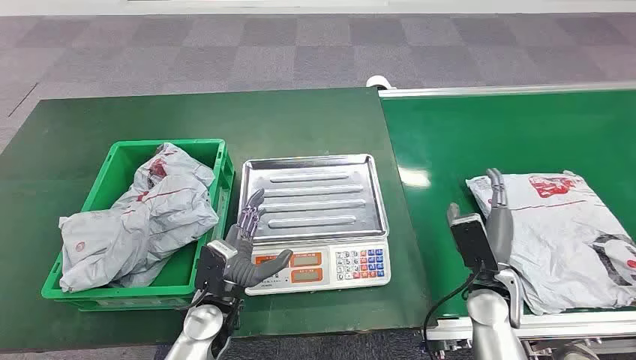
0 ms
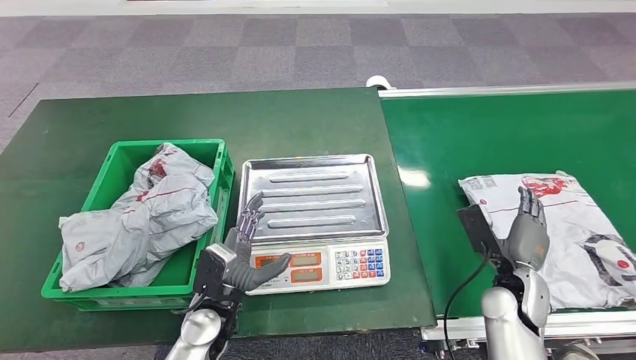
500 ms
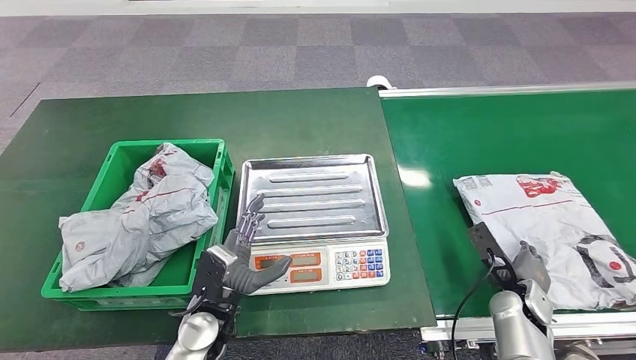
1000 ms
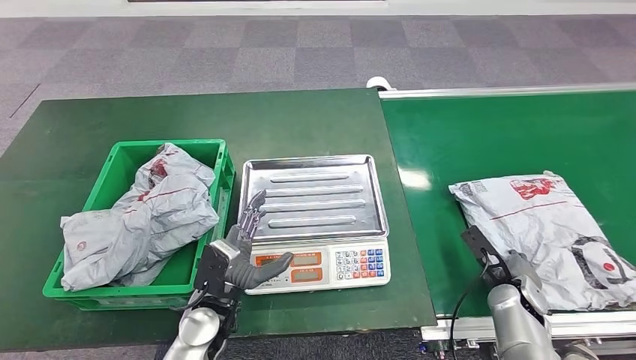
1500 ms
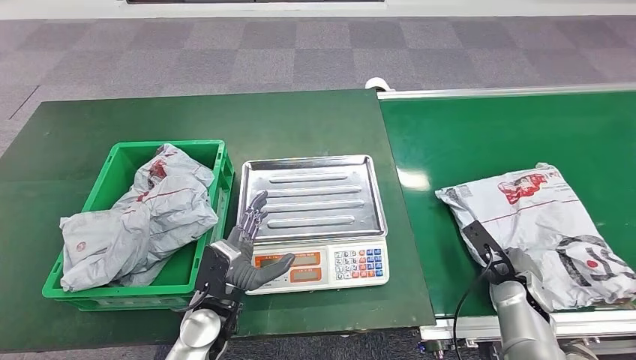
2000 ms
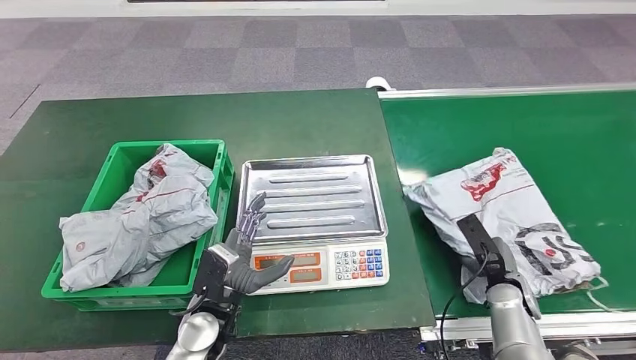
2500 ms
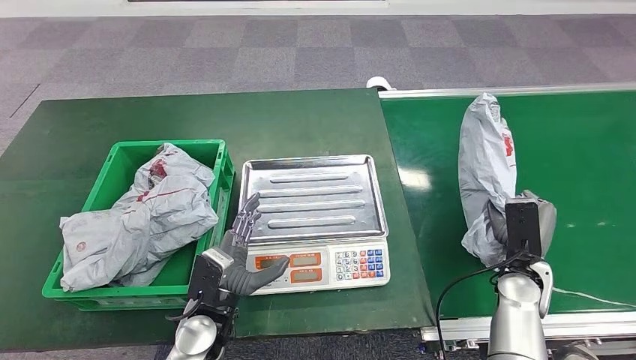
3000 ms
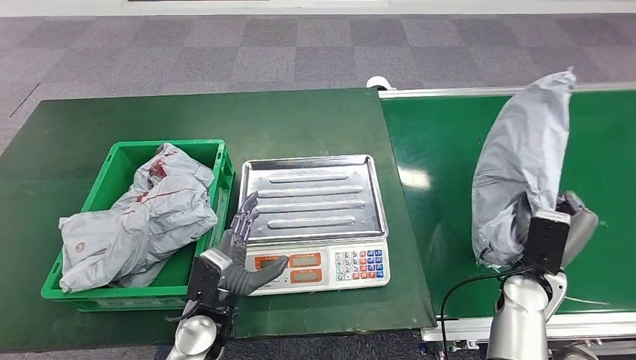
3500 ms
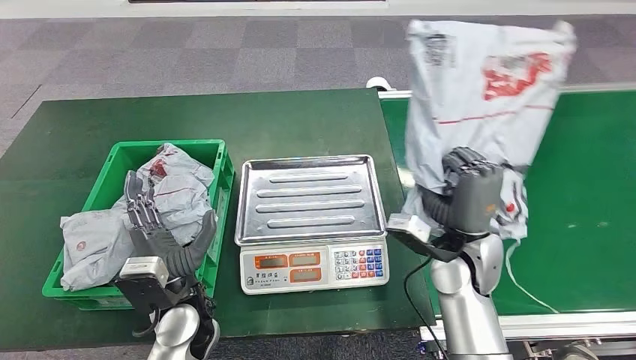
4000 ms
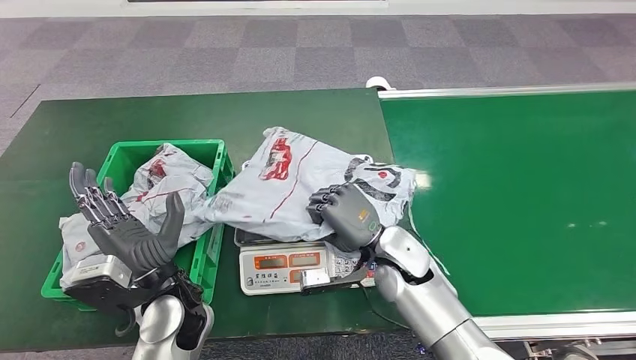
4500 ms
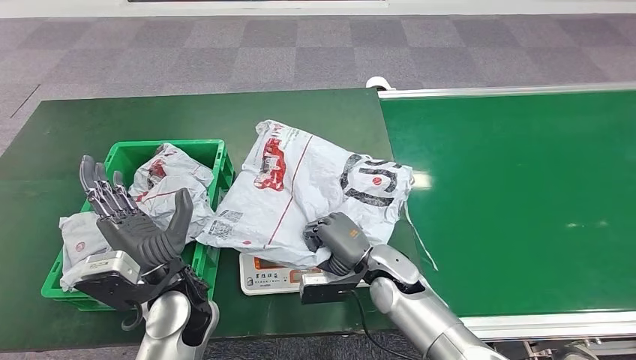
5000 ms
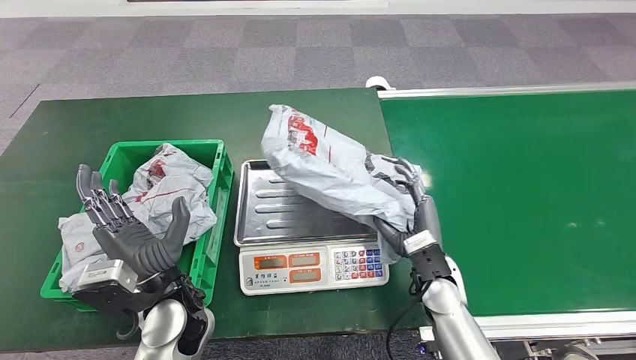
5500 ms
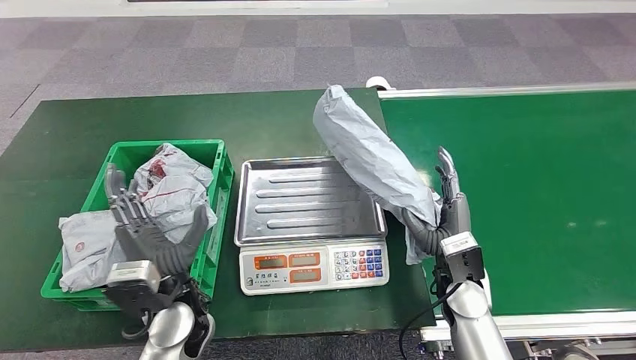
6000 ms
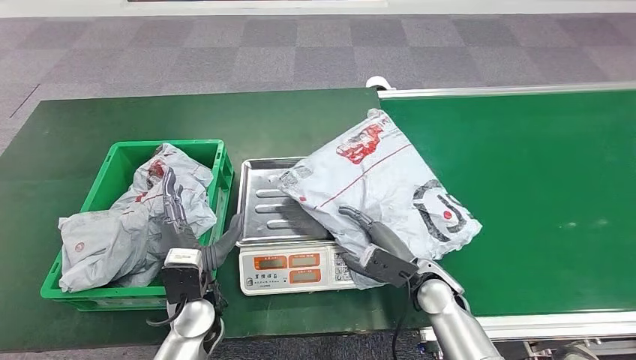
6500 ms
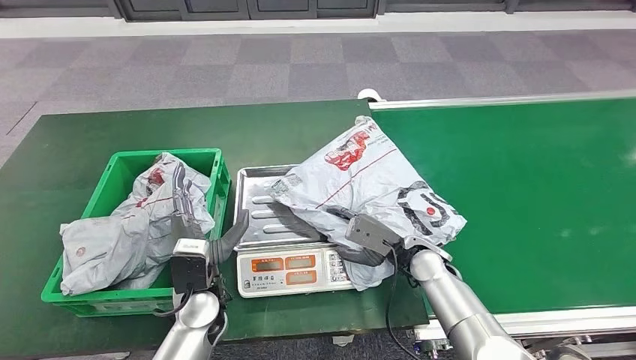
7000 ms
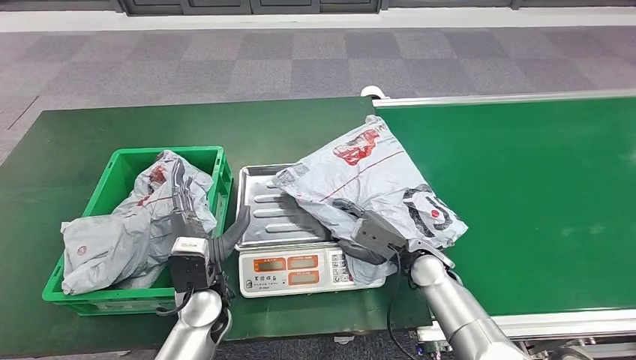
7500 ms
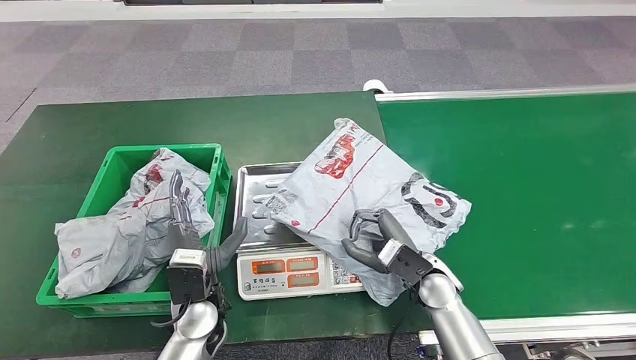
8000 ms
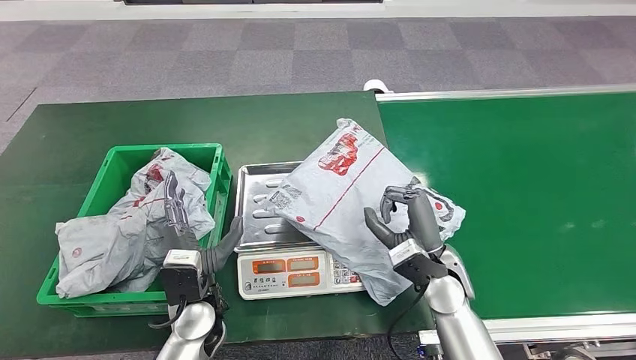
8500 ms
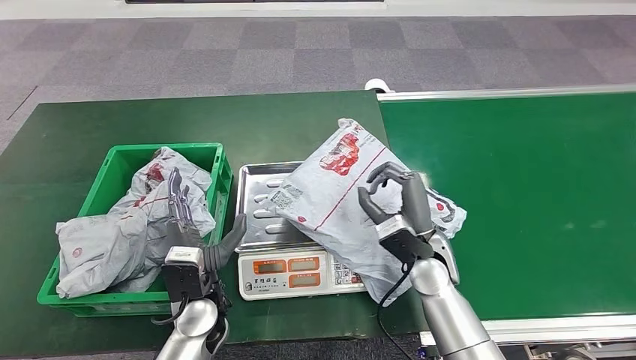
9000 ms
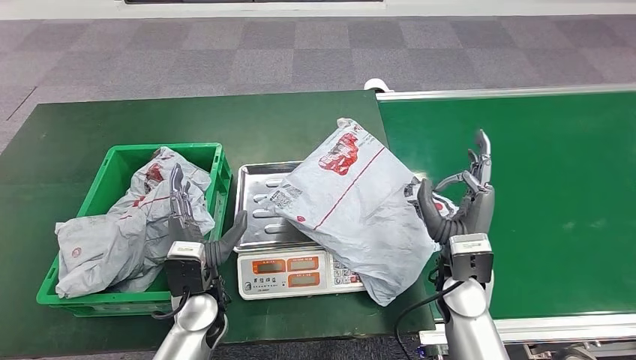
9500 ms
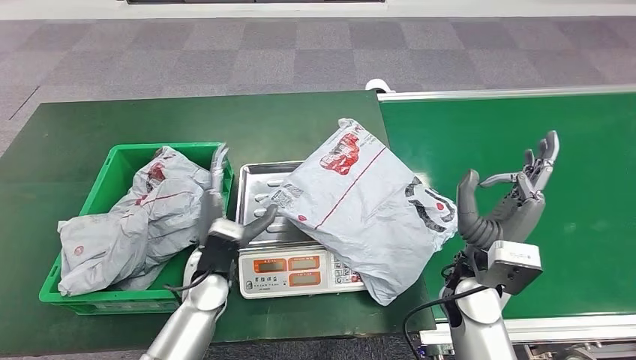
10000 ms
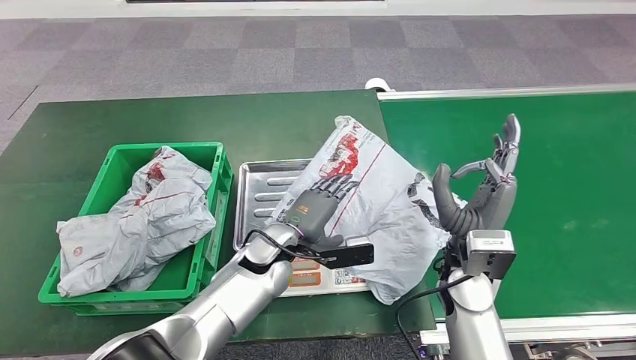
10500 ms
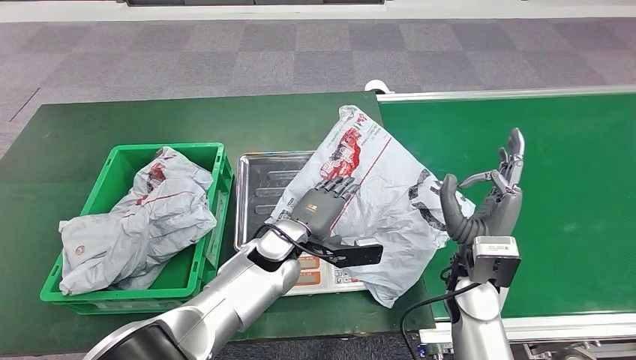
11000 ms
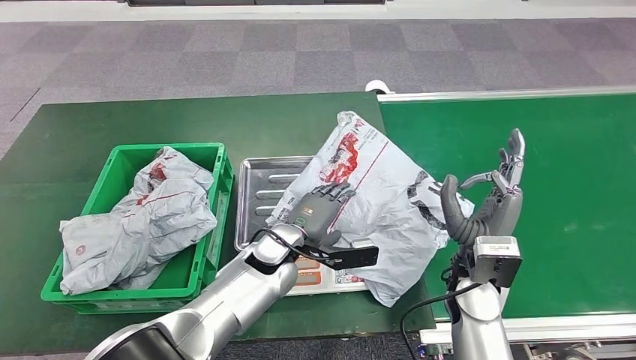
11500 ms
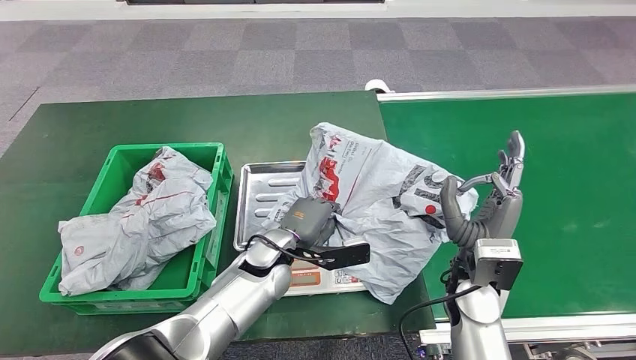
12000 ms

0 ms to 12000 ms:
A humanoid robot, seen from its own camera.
Step, 0 ms to 3500 ms: Pick up the package from the conveyor belt.
Step, 4000 ms to 6000 ms: Place the package onto the inbound machine.
8000 ms to 10000 ms: The right hand travels upward by some 10 cm. Meanwhile the left hand moves approximately 5 cm.
10000 ms to 12000 ms: The left hand travels to the right by about 10 cm.

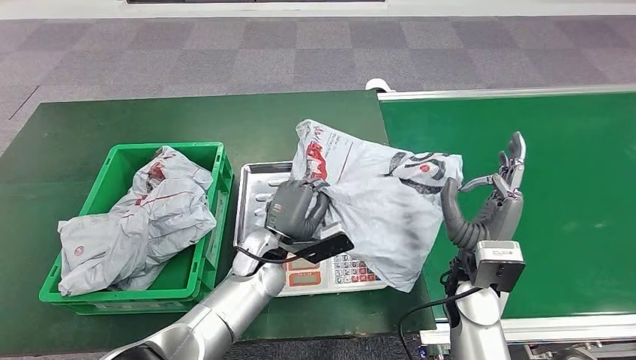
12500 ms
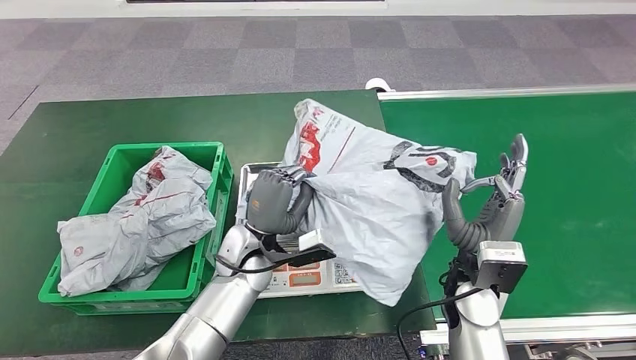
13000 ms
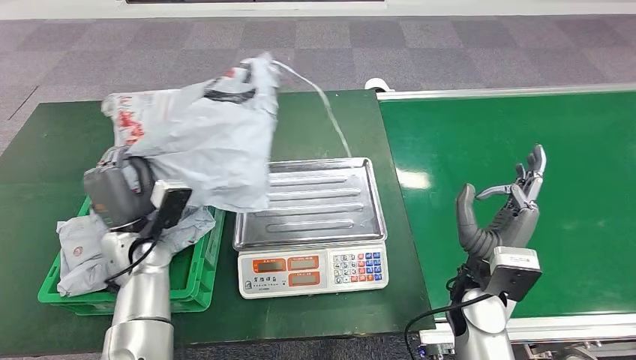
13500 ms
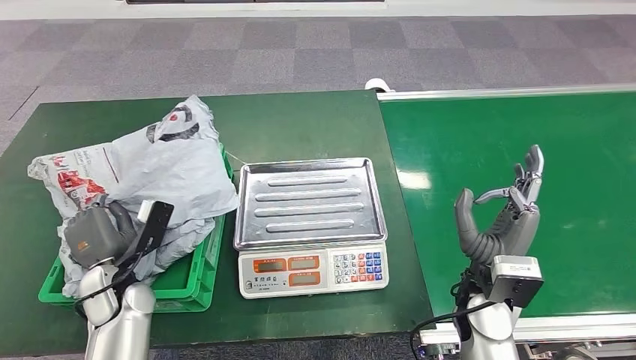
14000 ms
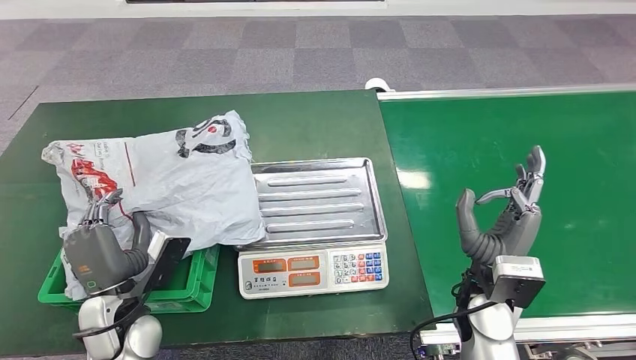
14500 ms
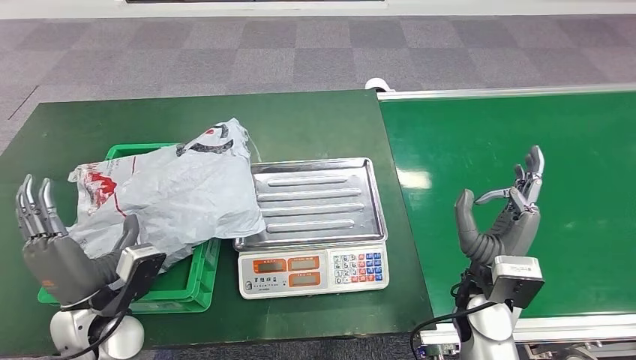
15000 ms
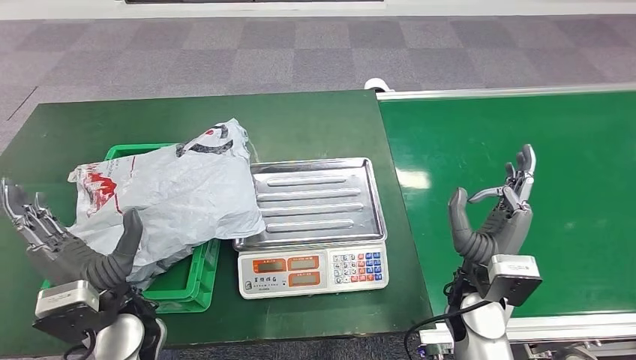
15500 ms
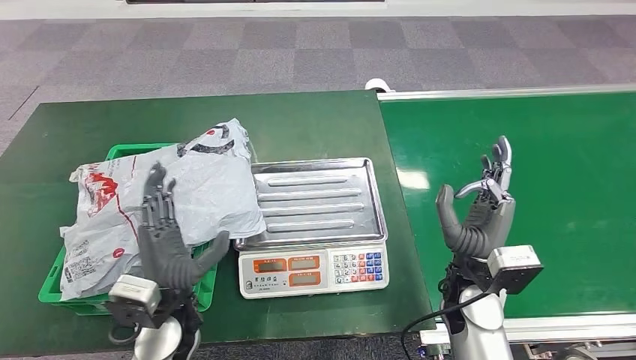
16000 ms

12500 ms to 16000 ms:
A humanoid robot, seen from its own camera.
Step, 13500 ms to 16000 ms: Place the package into the parcel locker.
14500 ms to 16000 ms: The left hand goes approximately 10 cm to the right.
